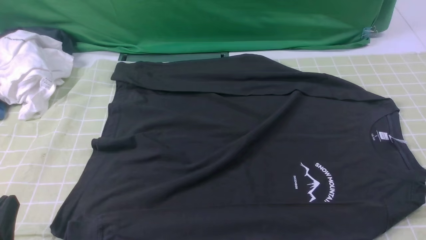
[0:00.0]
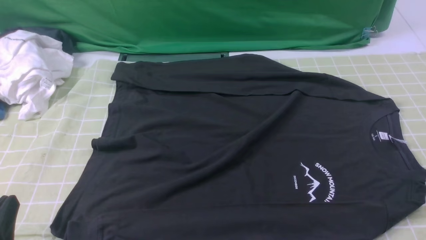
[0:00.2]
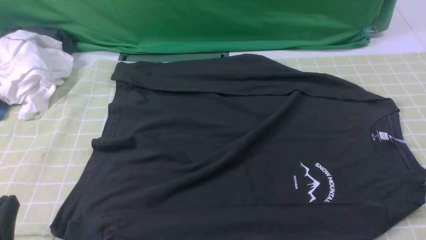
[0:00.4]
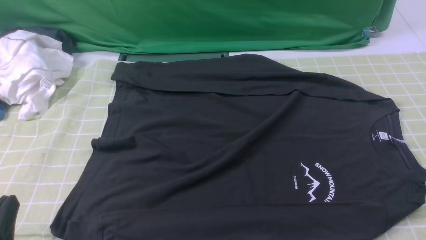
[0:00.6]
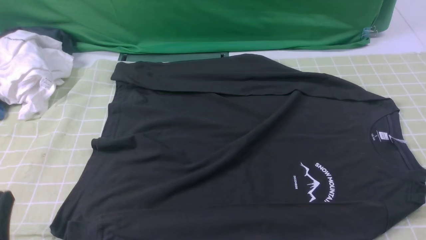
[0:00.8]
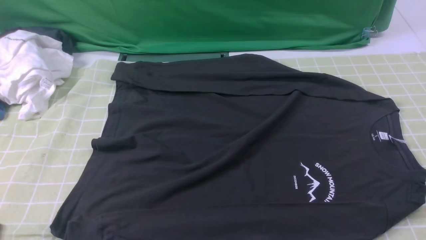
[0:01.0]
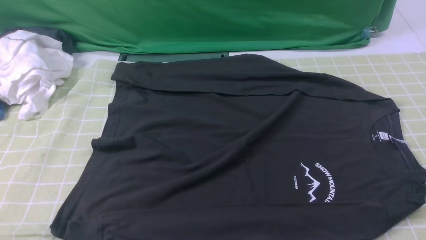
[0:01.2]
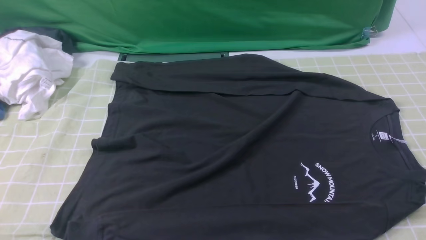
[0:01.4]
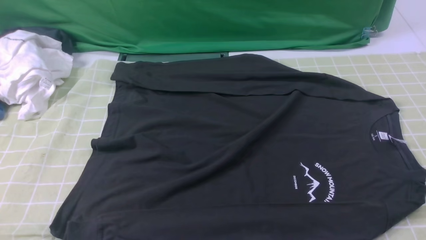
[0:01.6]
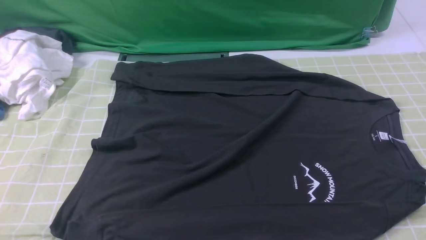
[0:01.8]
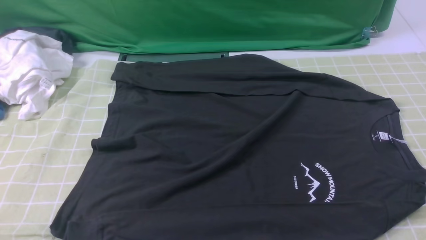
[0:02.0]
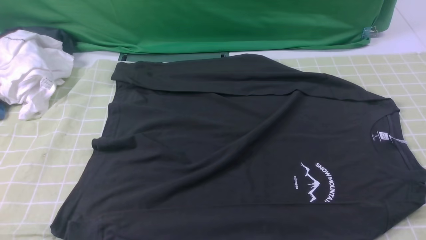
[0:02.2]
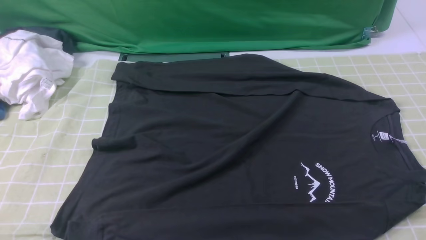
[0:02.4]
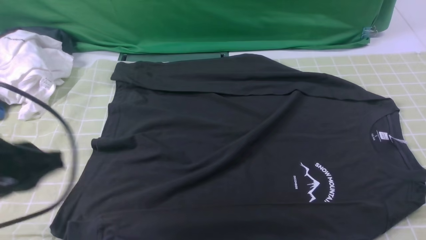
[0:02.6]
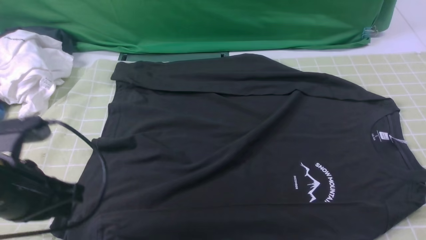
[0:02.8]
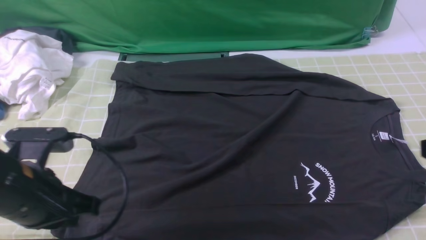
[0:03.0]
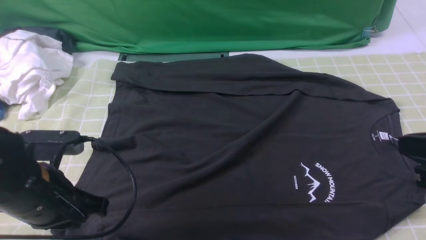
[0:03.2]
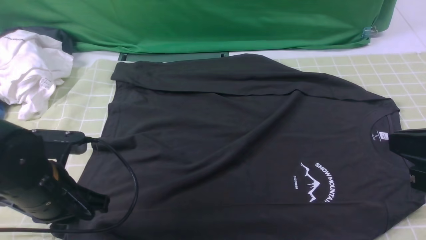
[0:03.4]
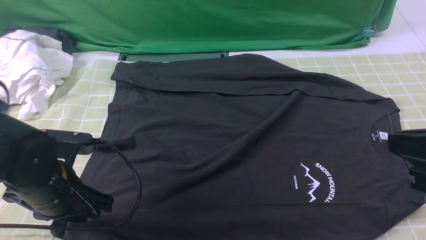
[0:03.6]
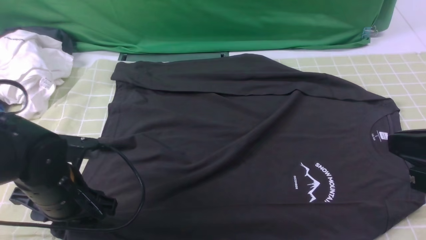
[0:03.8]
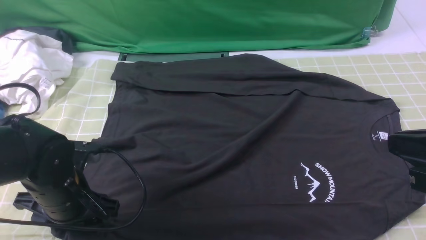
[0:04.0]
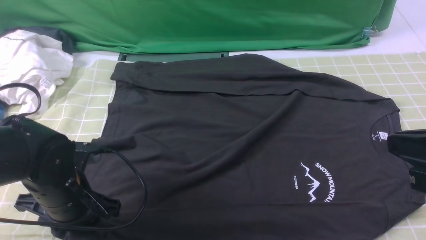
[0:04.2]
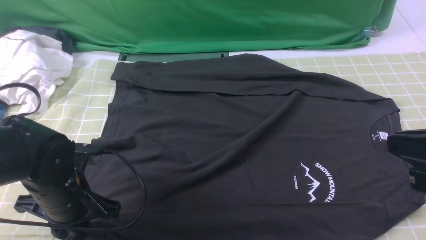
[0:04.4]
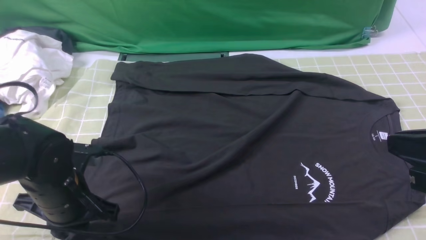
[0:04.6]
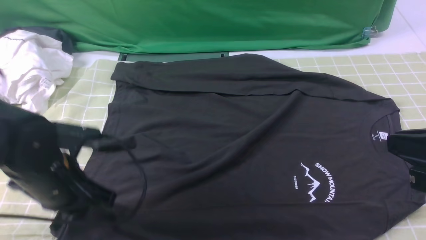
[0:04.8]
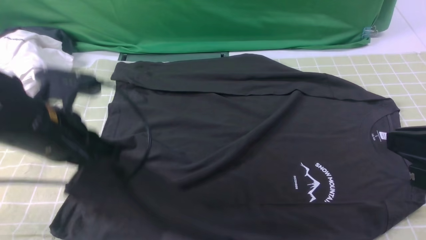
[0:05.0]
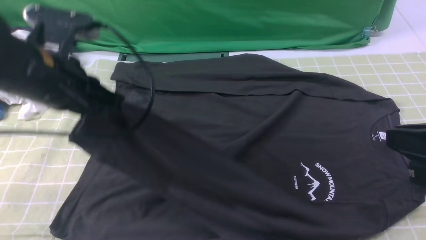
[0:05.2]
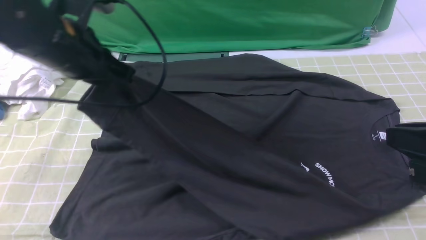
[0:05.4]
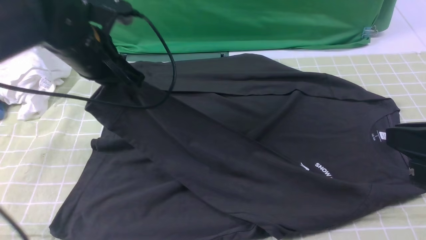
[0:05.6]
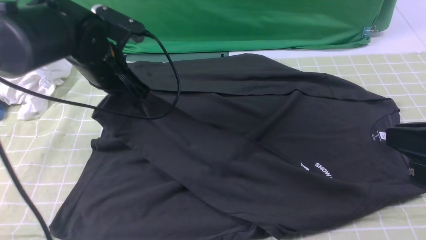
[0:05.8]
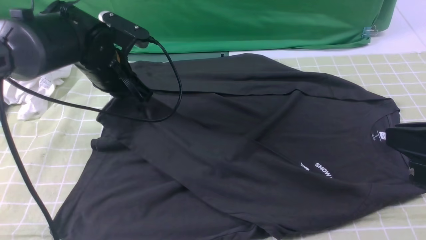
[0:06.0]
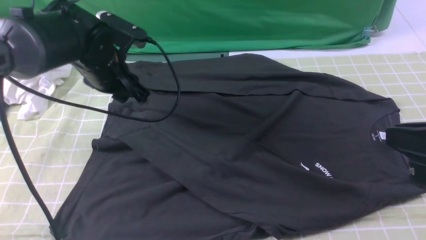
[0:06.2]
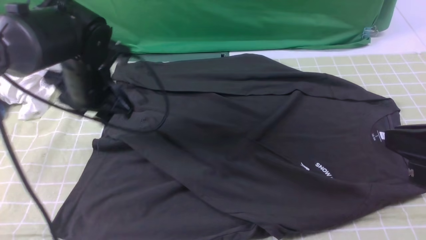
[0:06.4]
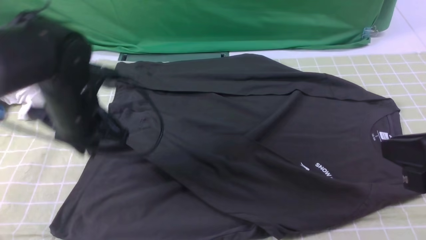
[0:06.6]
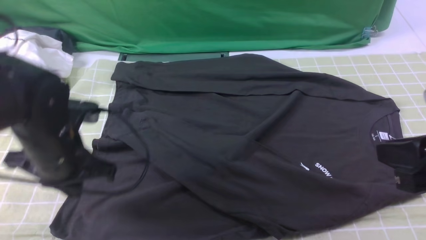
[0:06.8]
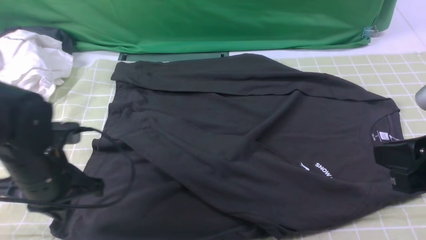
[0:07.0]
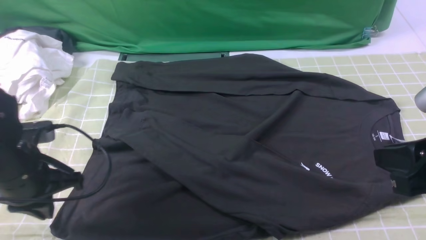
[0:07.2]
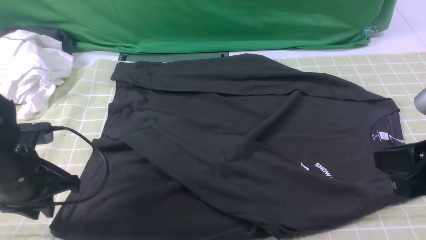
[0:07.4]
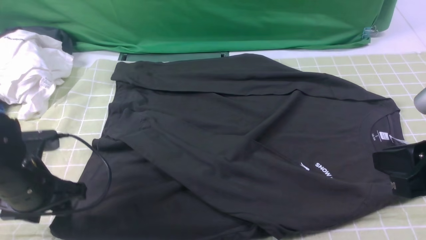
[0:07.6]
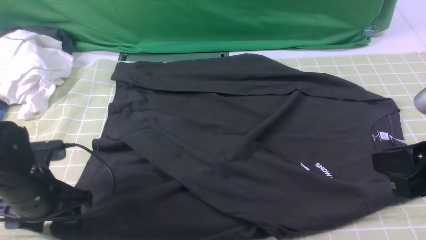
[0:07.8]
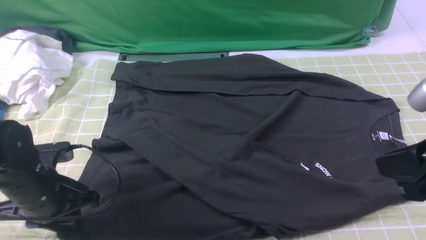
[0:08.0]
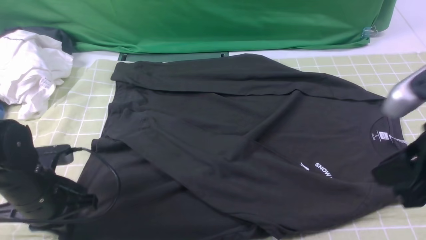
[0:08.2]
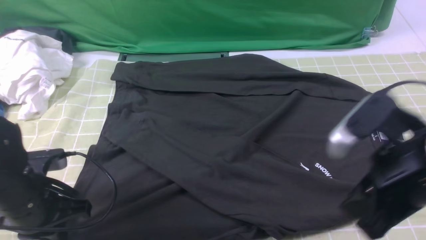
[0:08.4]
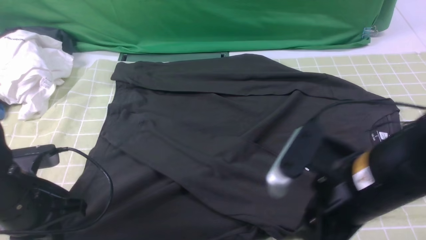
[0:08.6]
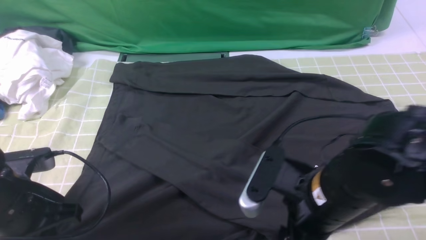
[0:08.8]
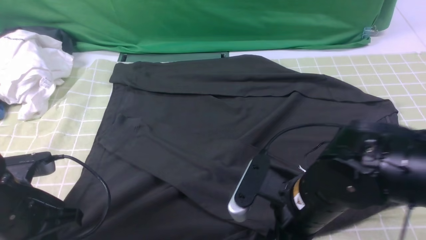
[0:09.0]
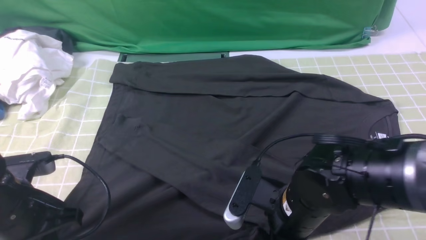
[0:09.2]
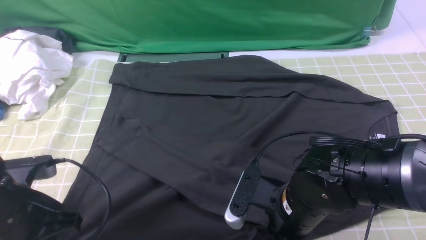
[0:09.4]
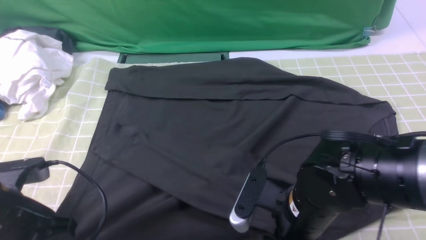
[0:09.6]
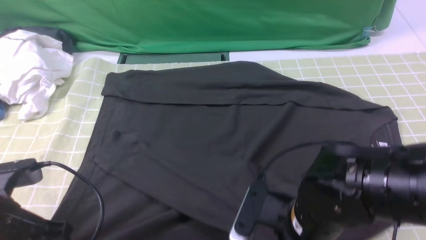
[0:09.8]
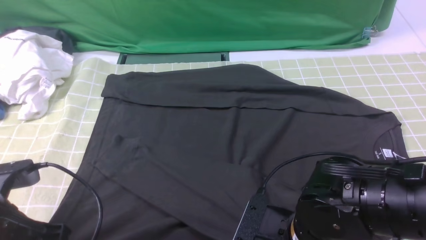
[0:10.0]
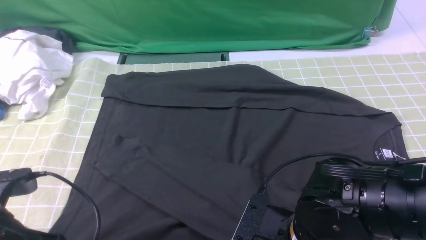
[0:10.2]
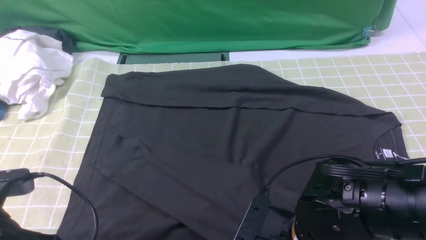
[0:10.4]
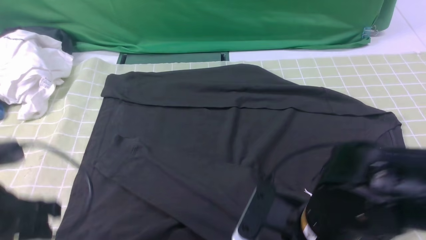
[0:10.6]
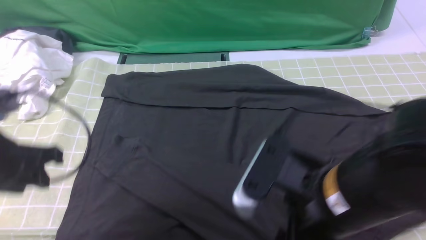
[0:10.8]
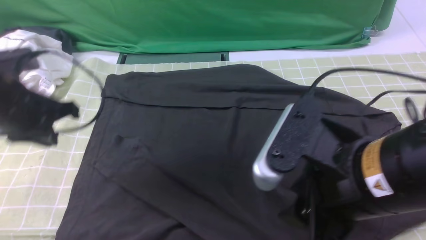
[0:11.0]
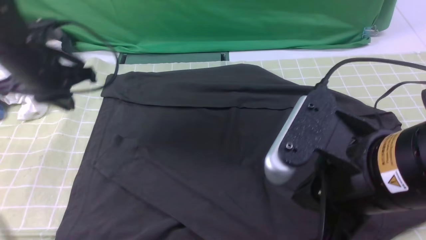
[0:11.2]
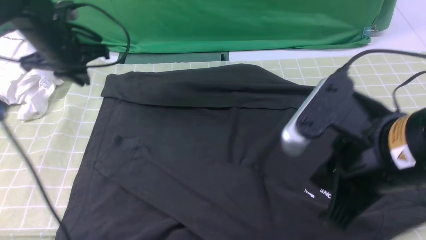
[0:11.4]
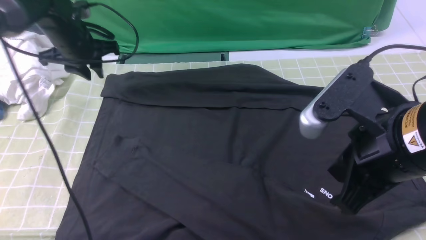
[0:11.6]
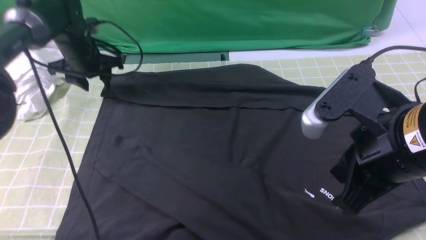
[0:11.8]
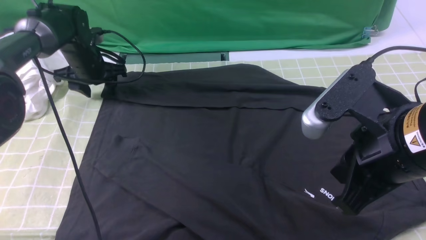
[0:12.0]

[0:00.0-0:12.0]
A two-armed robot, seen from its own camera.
Step, 0:00.0 to 0:04.4: use the left arm to clamp the cuff closest to it.
Step, 0:04.8 to 0:06.2: use the left arm to drag and place the cuff at the centered position on the left edge of the fabric.
0:00.0 to 0:01.6: The left gripper travels upward by roughly 5 cm.
0:01.6 to 0:03.0: The left gripper goes about 15 cm forward.
0:03.0 to 0:04.4: The left gripper moves downward, some 5 cm, and opens, then closes once more.
0:04.4 to 0:06.0: The left gripper goes approximately 20 cm forward and upward.
0:06.0 to 0:07.6: The left gripper heads backward, to the left and downward, covering some 20 cm, and opens up.
0:07.6 to 0:09.0: The left gripper shifts by about 5 cm, and closes its fingers; the right gripper is displaced to the left and downward by approximately 20 cm, and opens up.
0:09.0 to 0:10.4: The left gripper opens. Meanwhile the right gripper closes, then opens again.
0:10.4 to 0:12.0: The left gripper travels forward by about 35 cm, and closes, then opens again, while the right gripper heads upward and to the right, covering some 15 cm, and closes.

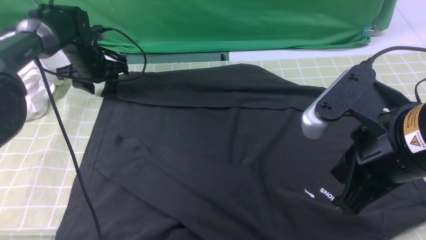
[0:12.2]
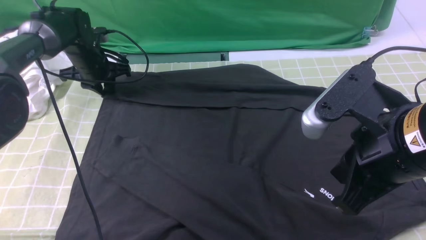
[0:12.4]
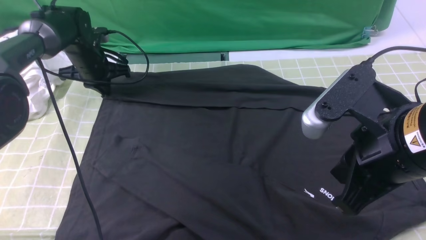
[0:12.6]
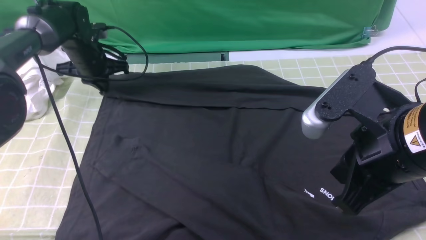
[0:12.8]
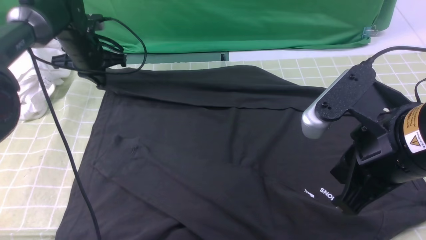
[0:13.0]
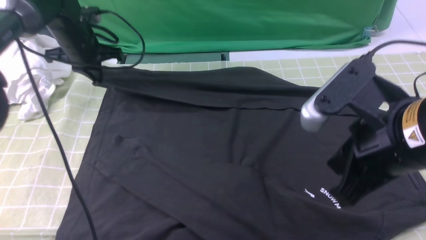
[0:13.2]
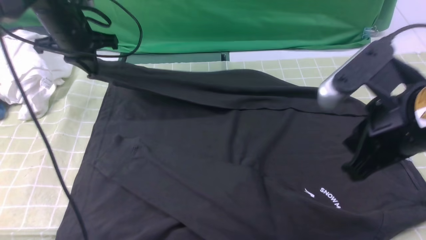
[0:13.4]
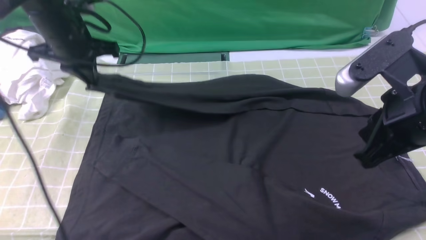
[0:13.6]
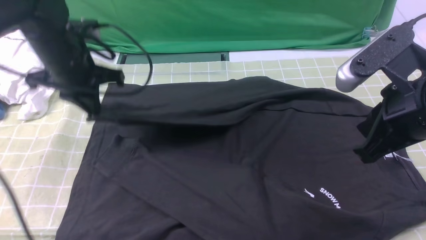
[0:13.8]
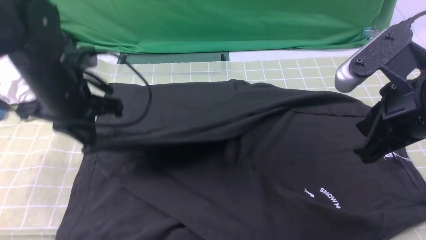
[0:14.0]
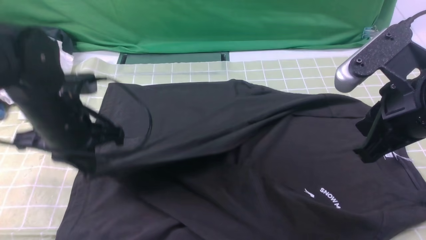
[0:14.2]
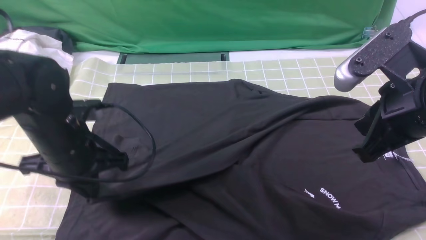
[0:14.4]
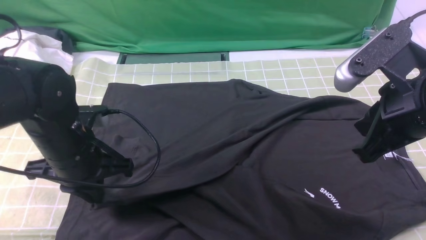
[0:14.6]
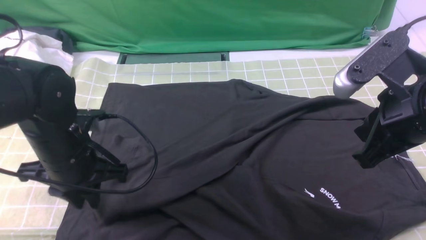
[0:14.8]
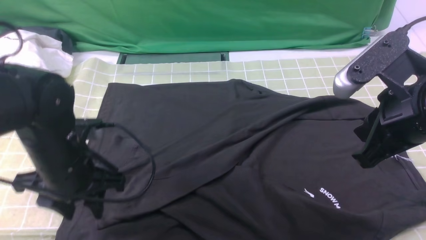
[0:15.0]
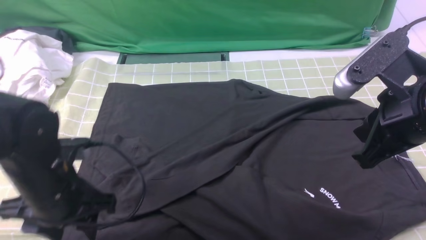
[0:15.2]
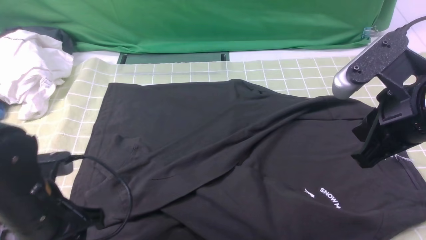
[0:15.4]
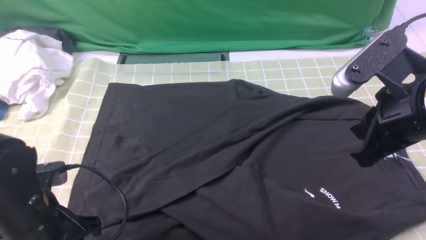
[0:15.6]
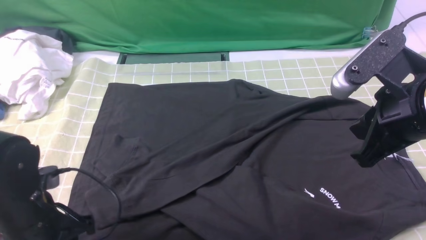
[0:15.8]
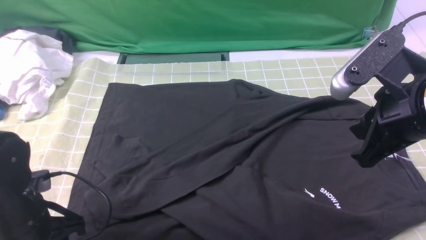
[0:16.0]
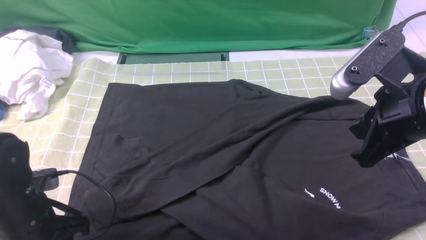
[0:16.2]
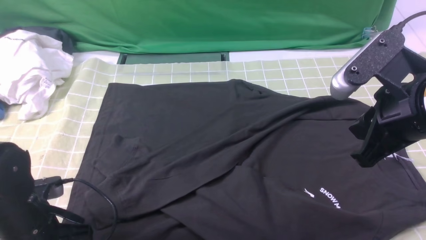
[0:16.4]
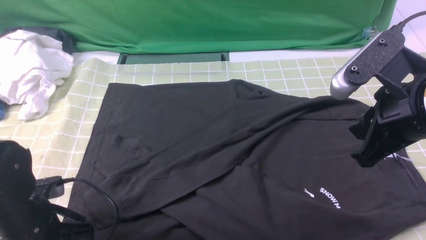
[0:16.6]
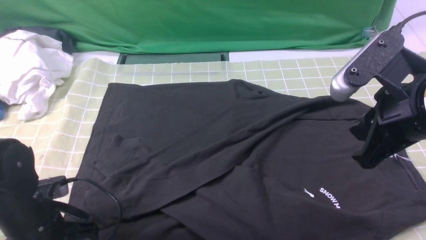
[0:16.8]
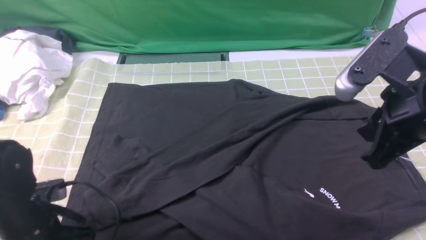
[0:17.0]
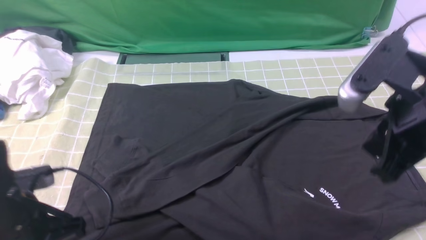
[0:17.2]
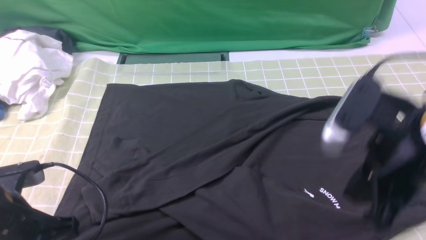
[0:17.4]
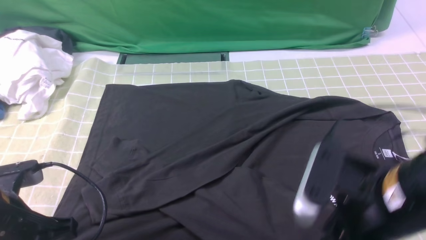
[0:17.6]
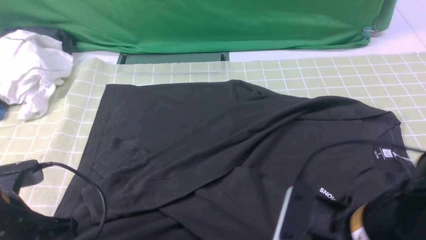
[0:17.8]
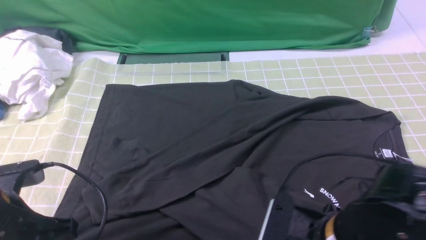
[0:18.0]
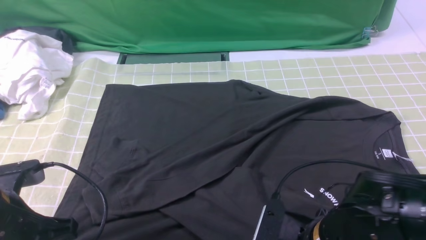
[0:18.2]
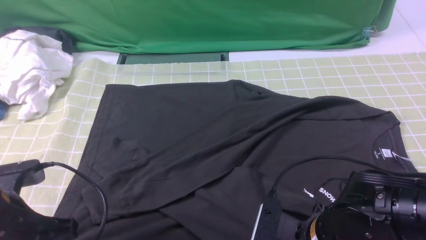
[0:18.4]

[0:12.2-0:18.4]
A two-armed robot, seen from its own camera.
Step, 0:12.8 to 0:14.8: use the left arm to drag and drop the cuff onto the cuff closest to the left arm.
Step, 0:15.2 to 0:18.4: use both arms simultaneously to clamp the lower edge of the clothing fabric.
0:12.2 to 0:13.8: The left gripper goes about 20 cm backward and upward, and closes its fingers. The right gripper shifts by some 5 cm.
0:13.8 to 0:15.4: The left gripper moves backward, some 20 cm, and opens up.
0:15.4 to 0:16.8: The left gripper goes about 5 cm downward, and closes up.
0:16.8 to 0:18.4: The left gripper moves upward, about 5 cm. Meanwhile the right gripper heads downward and to the left, covering some 20 cm, and opens, then closes once more.
